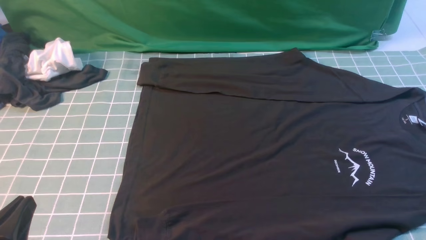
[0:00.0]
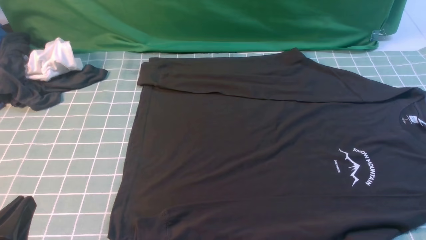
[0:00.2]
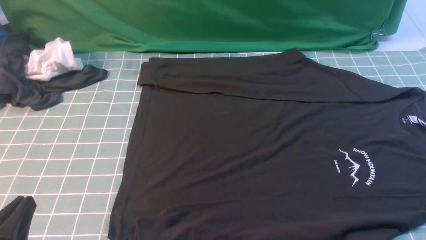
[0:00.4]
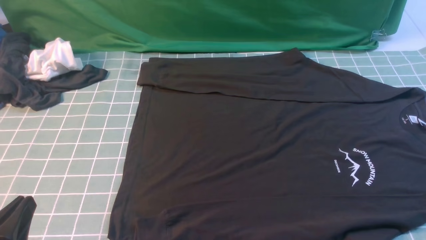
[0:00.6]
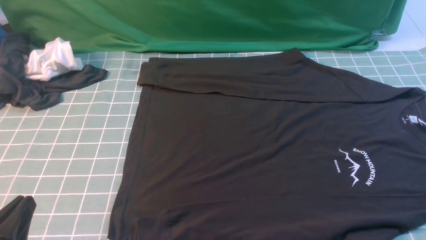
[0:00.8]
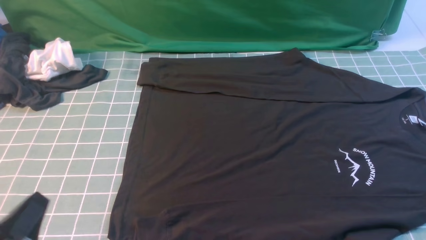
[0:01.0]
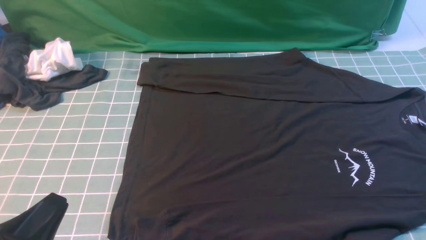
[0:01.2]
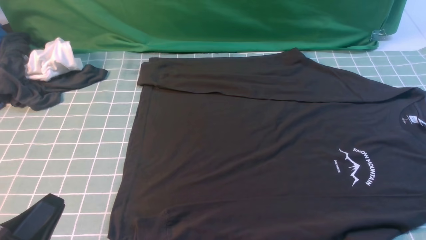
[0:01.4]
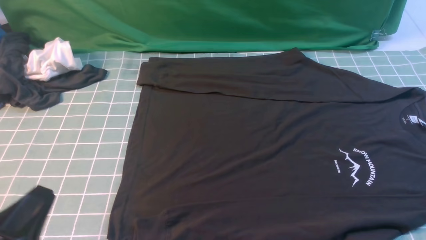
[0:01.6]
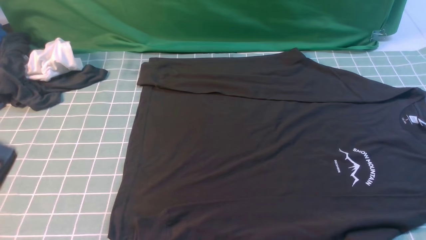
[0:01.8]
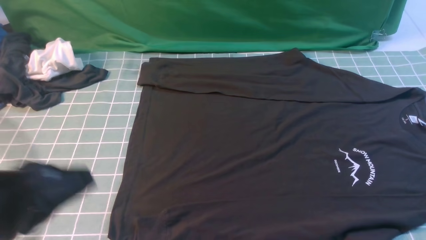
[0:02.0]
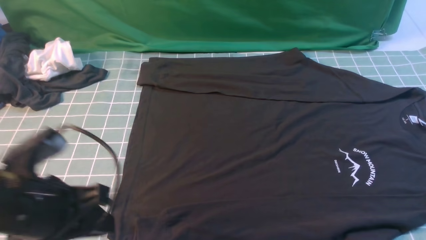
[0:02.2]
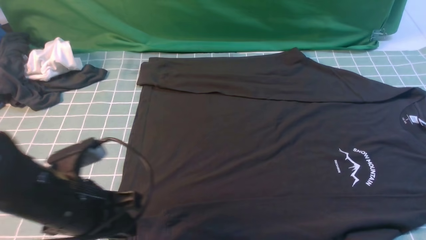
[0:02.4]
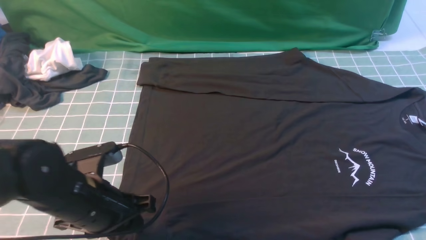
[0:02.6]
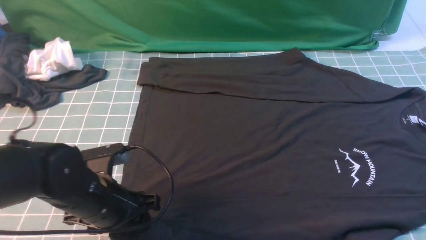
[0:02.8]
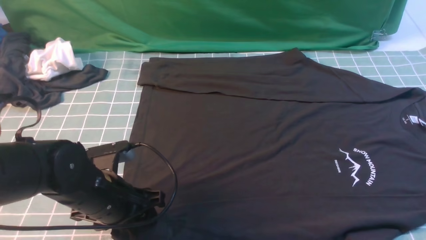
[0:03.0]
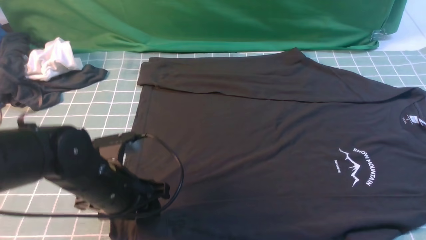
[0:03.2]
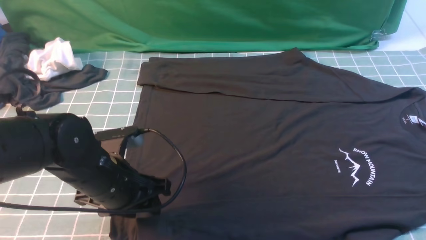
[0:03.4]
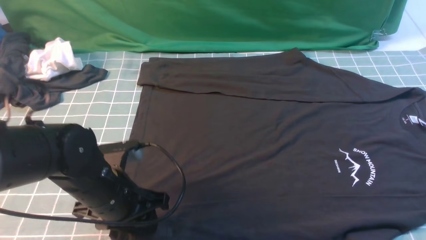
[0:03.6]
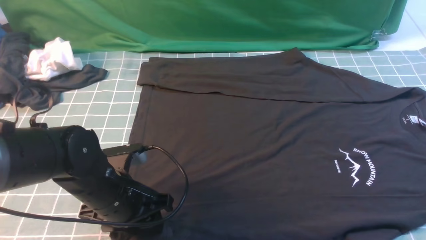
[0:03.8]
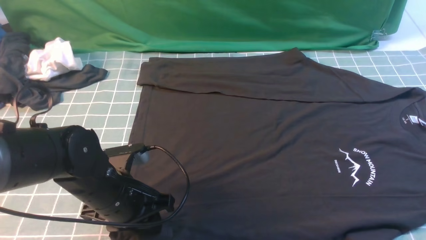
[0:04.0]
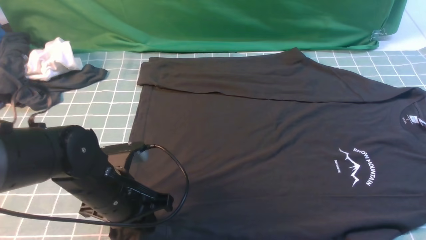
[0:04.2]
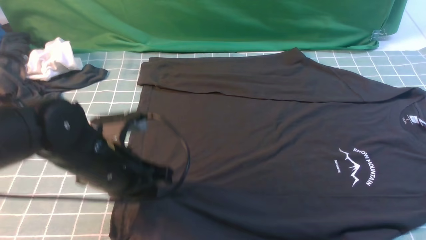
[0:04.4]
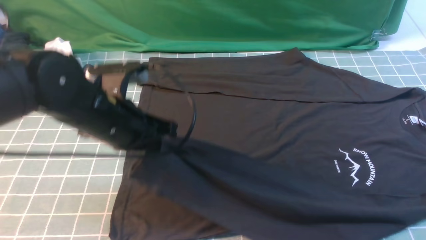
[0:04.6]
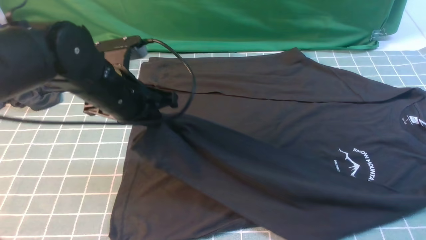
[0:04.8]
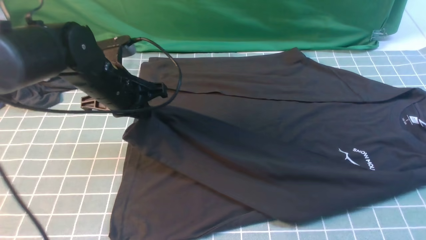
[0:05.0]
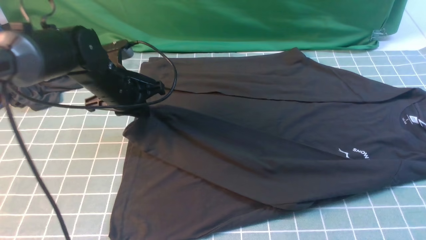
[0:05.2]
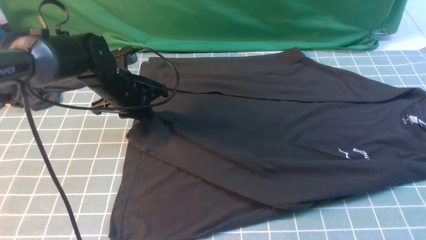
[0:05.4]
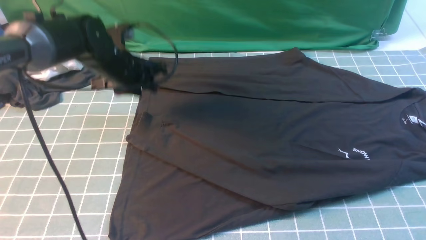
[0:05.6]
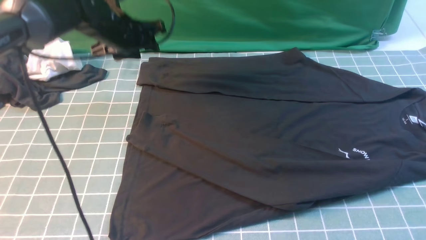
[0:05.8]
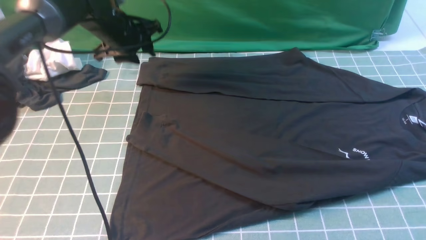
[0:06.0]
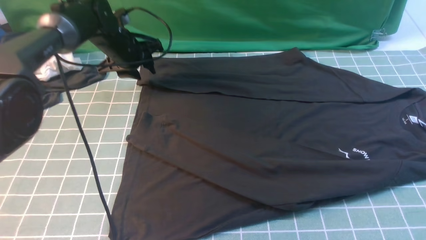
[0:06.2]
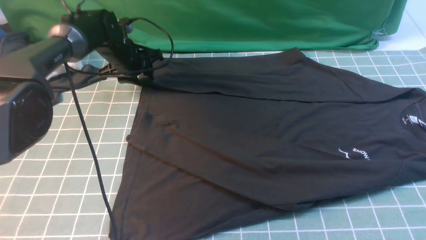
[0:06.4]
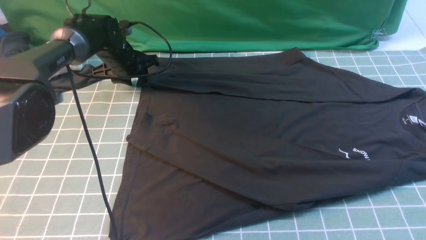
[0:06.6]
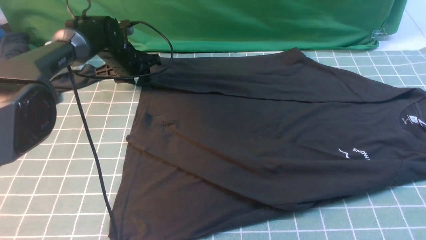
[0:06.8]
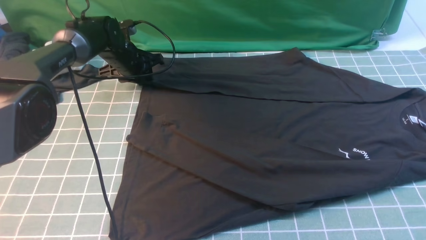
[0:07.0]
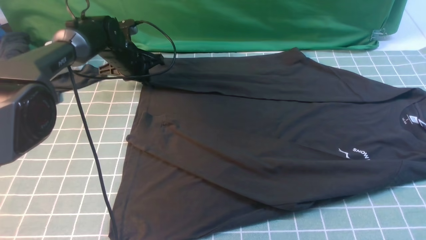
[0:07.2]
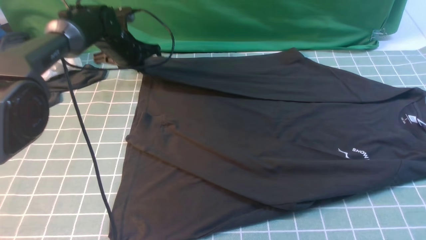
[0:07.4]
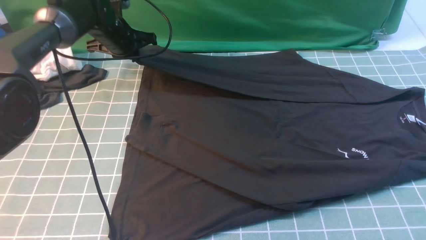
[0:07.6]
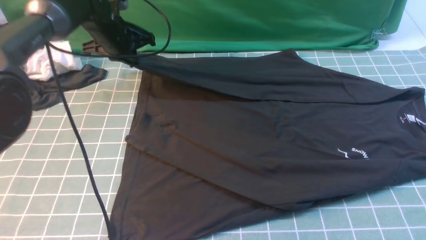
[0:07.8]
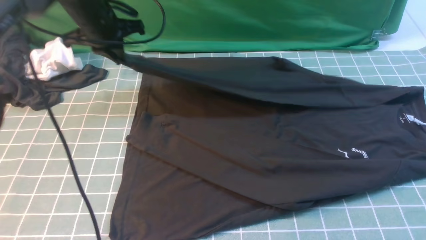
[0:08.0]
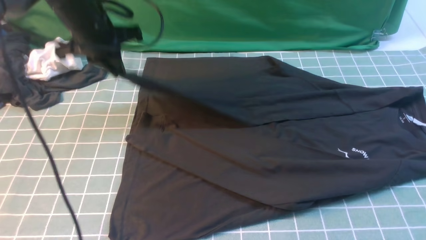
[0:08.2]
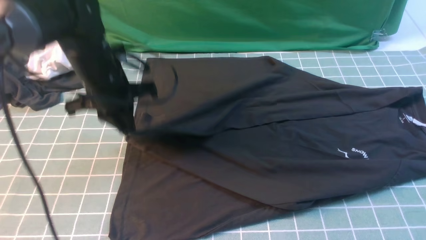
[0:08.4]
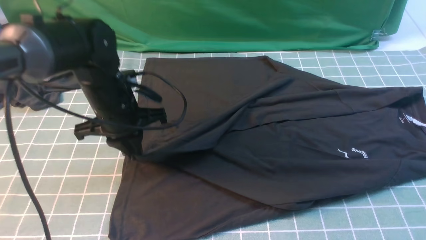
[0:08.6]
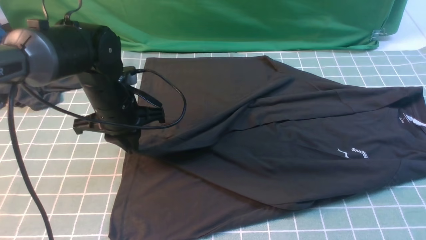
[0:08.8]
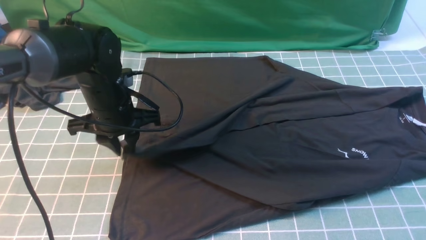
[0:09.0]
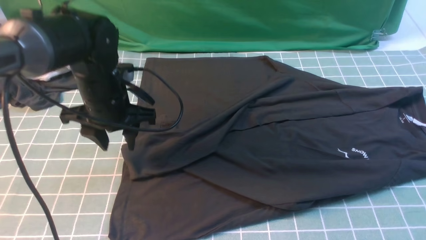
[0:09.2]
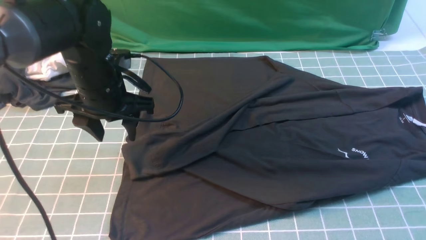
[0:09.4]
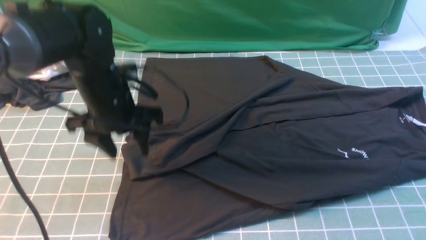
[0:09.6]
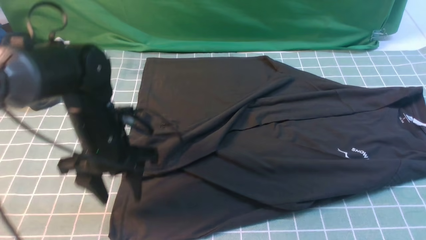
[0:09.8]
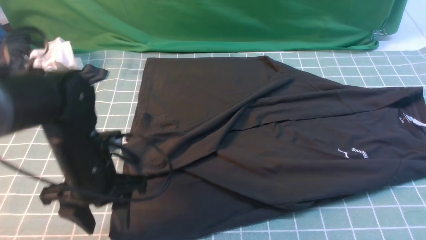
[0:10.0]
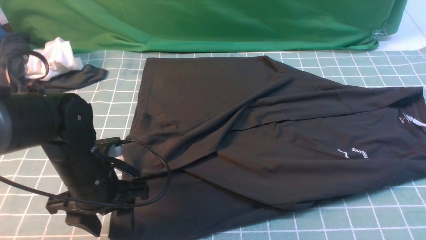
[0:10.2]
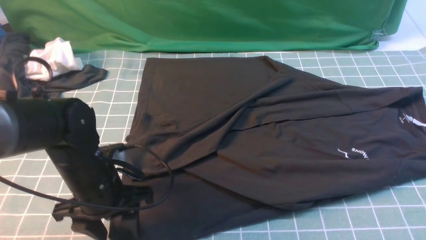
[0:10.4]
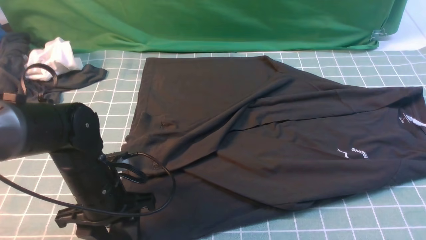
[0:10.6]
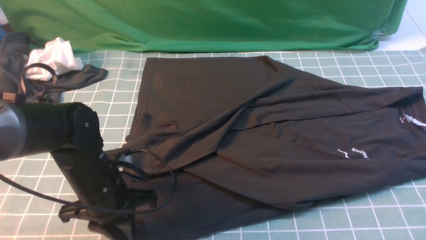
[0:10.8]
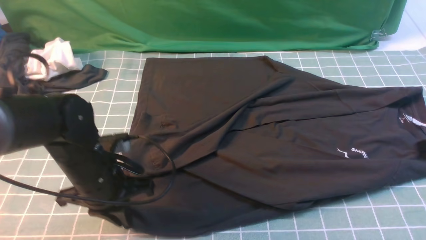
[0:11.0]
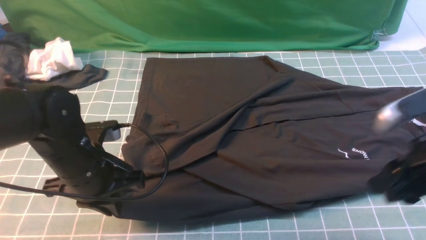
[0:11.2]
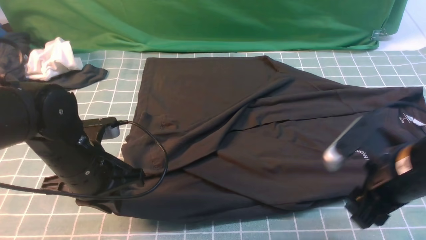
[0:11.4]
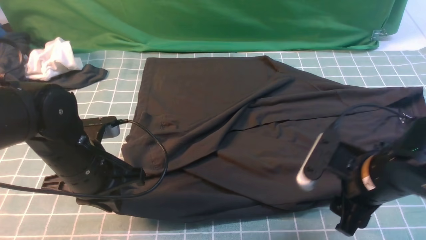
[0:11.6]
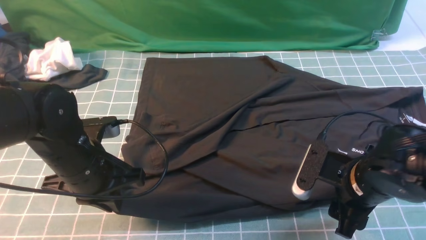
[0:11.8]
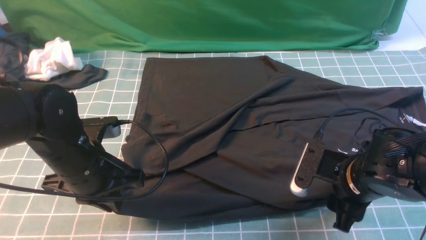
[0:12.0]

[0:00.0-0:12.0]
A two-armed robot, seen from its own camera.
Step, 0.0 to 4.2 s: use the left arm to clamp the cuff closest to it.
Step, 4.4 to 5.6 s: use the left arm to drag and place the cuff at the centered position on the left edge of the fabric.
Step, 5.8 to 7.2 s: use the left arm to clamp the cuff farthest from it.
Step, 7.4 to 9.4 s: use the left arm to drag and drop the cuff onto the cuff closest to the left arm.
1.6 to 3.0 s: The left gripper heads forward, downward and to the right, covering approximately 20 cm, and opens its fingers; the right gripper travels upward and forward by about 15 cm.
3.0 to 4.4 s: The left gripper heads upward, covering approximately 5 cm, and closes.
4.4 to 6.0 s: The left gripper moves forward, approximately 25 cm, and opens.
6.0 to 7.6 s: The left gripper closes its fingers.
7.6 to 9.0 s: The left gripper goes roughly 15 cm backward, and opens up.
9.0 to 10.4 s: The left gripper shifts some 10 cm backward and downward, and opens up.
10.4 to 12.0 s: The left gripper closes up; the right gripper is displaced downward and to the left by about 20 cm, and opens.

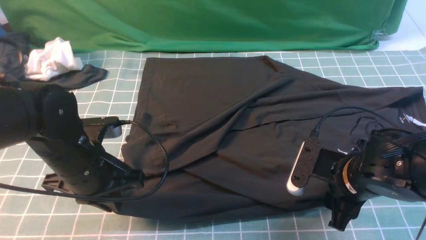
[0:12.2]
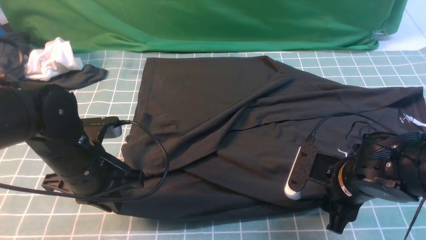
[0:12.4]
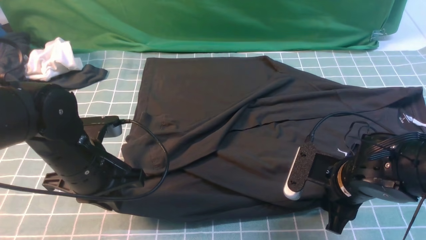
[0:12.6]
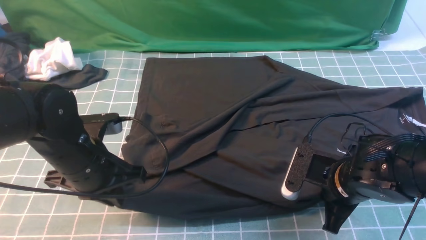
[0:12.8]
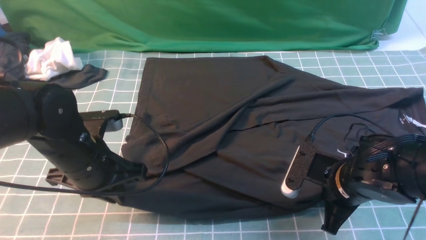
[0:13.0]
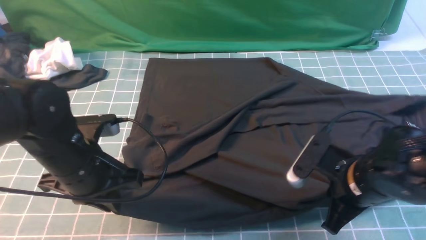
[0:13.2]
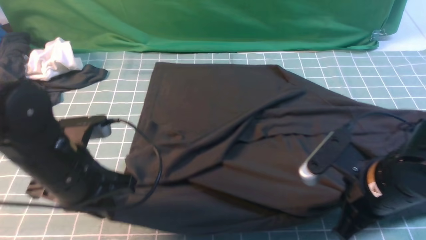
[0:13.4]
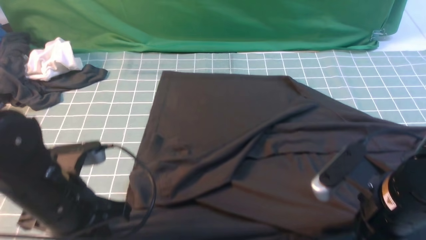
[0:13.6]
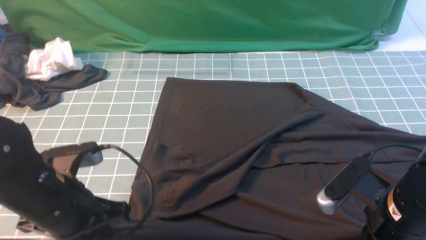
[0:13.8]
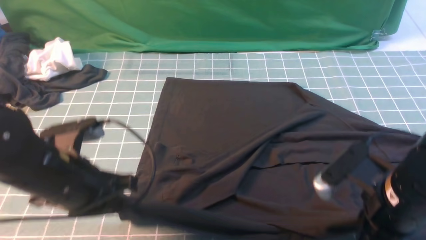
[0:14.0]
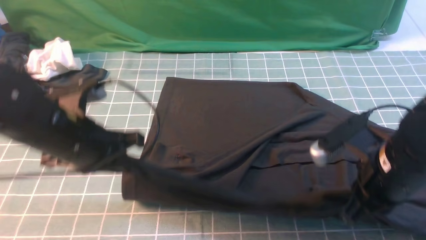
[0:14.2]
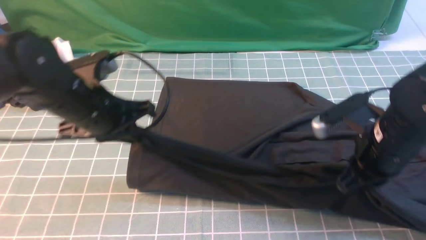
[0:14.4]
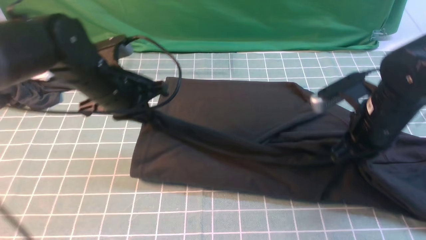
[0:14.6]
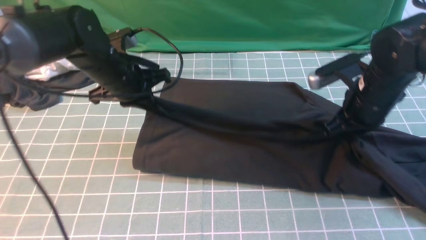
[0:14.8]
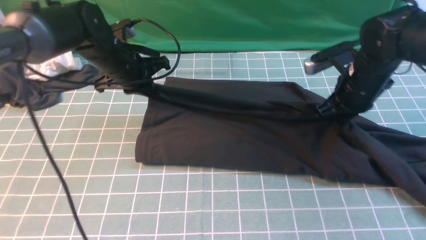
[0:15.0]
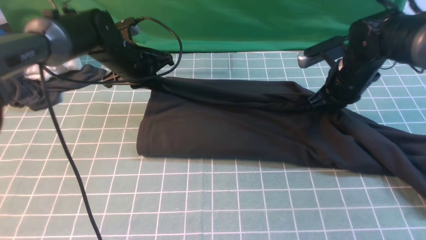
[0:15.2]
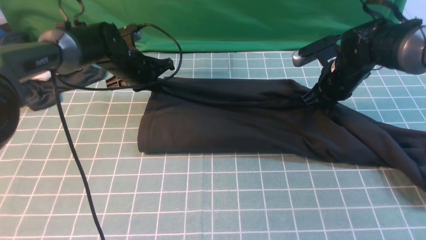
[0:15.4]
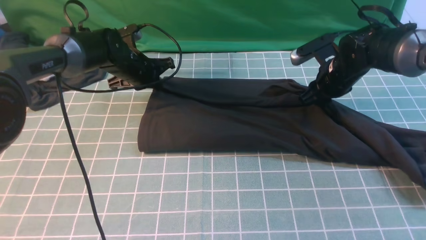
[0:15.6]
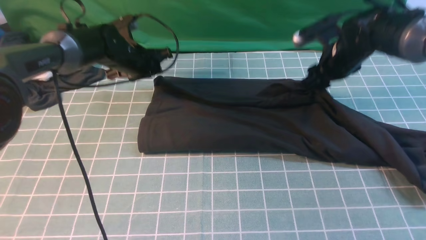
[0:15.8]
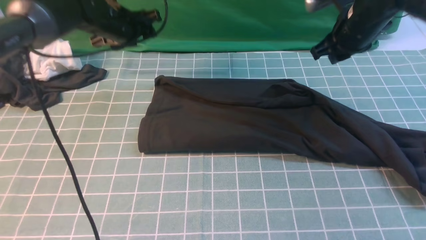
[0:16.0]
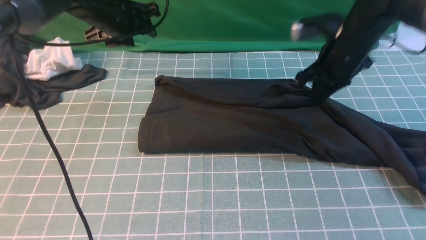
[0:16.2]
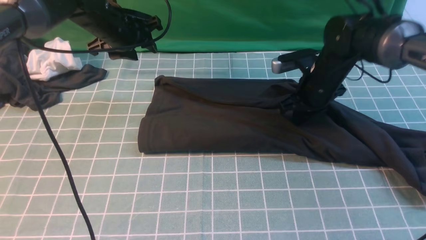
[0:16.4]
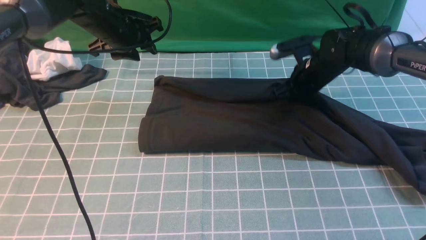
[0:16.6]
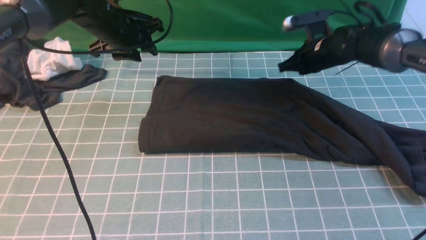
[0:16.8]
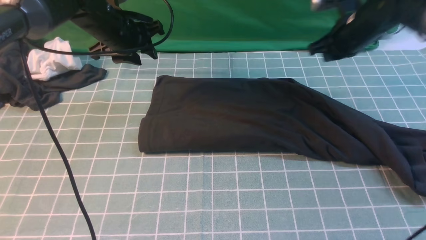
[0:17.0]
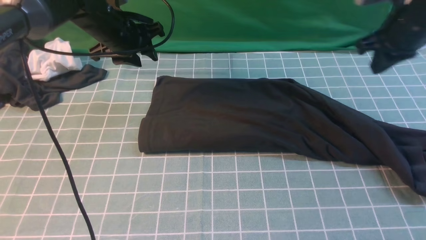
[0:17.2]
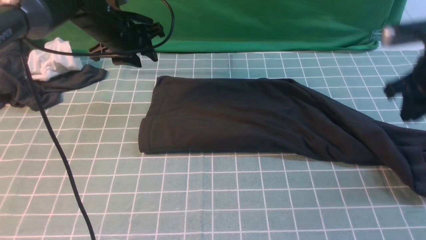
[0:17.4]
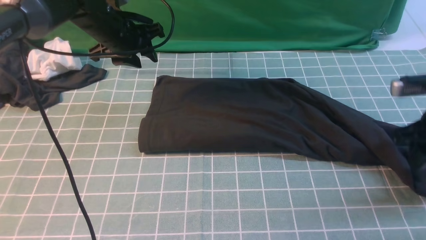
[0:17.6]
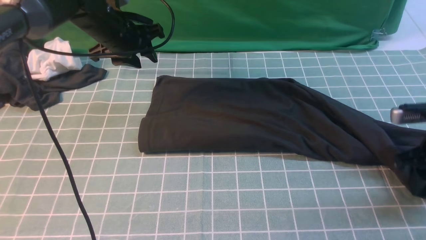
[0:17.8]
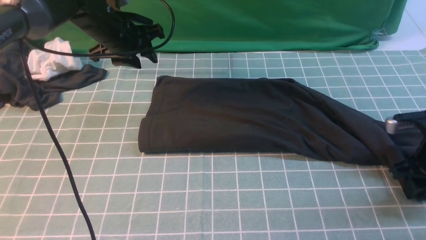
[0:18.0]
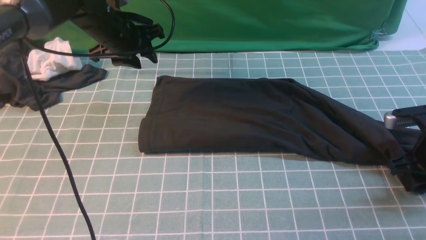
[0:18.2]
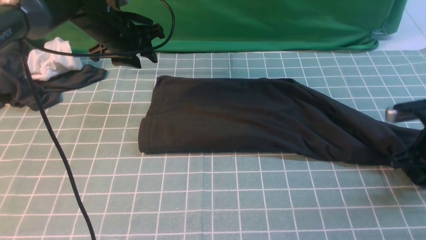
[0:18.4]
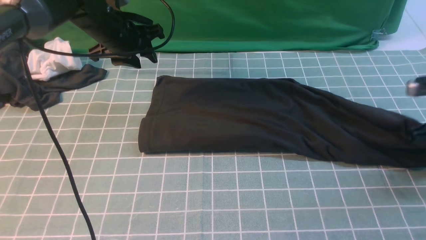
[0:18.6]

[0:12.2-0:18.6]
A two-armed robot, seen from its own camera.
Step, 13.2 to 15.8 s: use both arms to drag the lower edge of the fabric forward and fold it over the upper edge.
12.2 to 13.8 s: The right gripper is displaced backward and upward by some 10 cm, and closes, while the left gripper is displaced backward by roughly 5 cm.
13.8 to 15.4 s: The two grippers go about 30 cm forward.
15.4 to 17.0 s: The right gripper moves up and down over roughly 10 cm, changing direction 2 times; the left gripper travels upward by approximately 10 cm, and opens its fingers.
17.0 to 18.6 s: The right gripper heads backward and to the right, covering roughly 20 cm, and opens and closes again.
